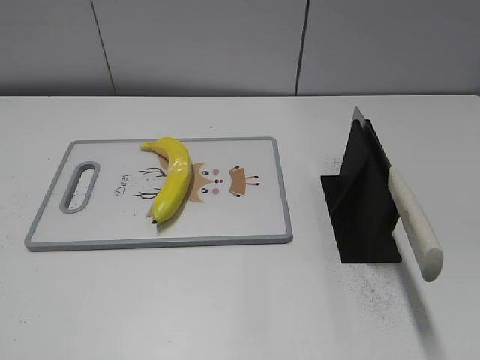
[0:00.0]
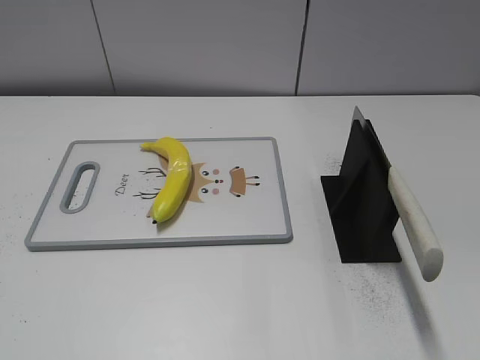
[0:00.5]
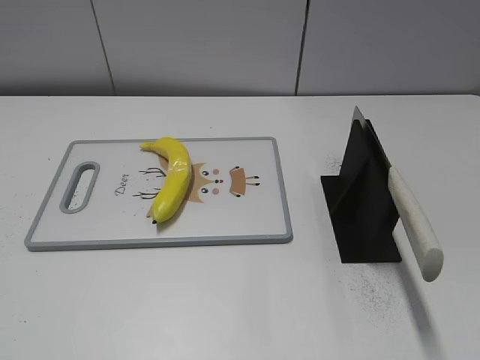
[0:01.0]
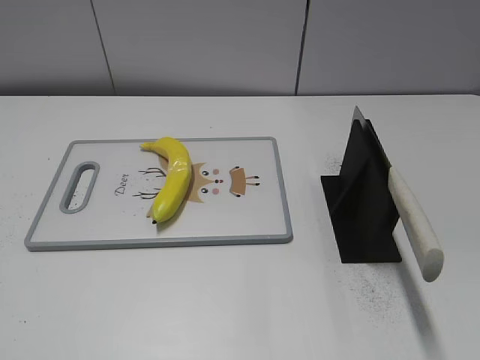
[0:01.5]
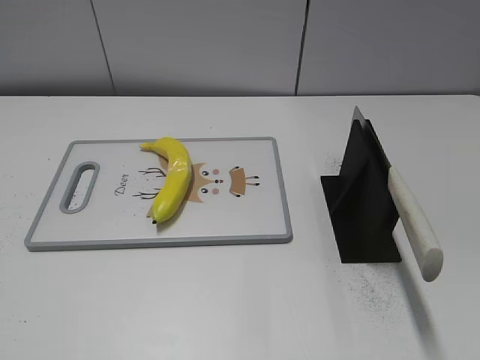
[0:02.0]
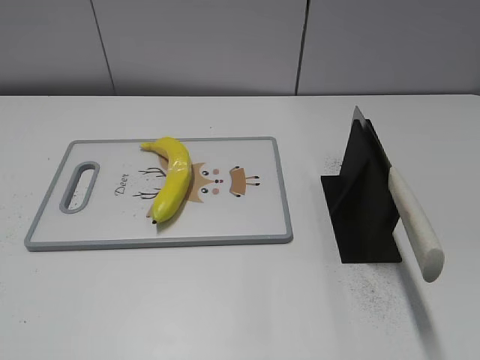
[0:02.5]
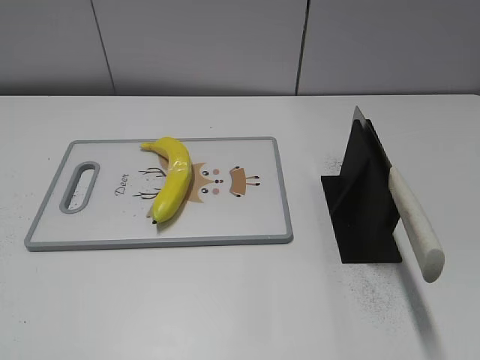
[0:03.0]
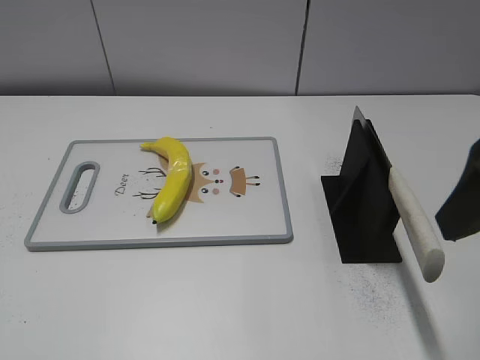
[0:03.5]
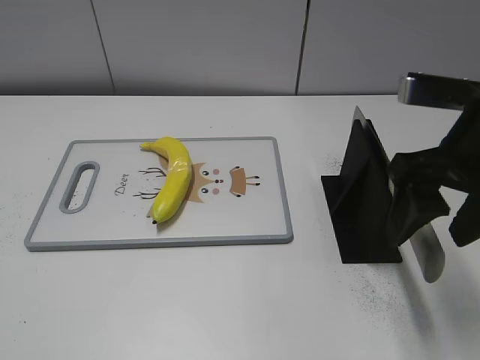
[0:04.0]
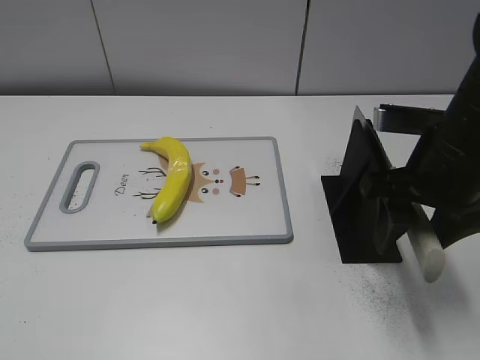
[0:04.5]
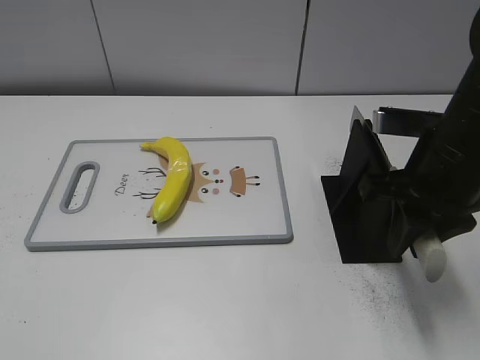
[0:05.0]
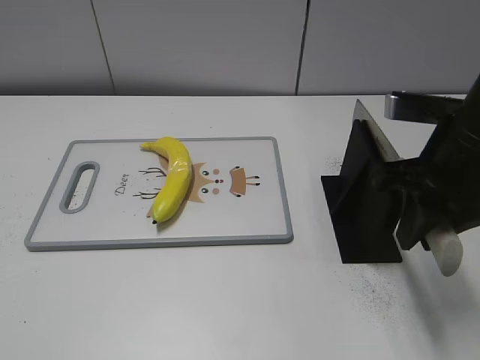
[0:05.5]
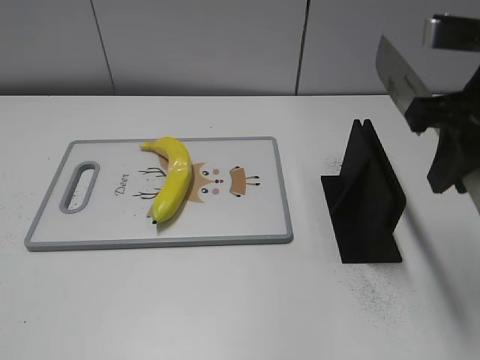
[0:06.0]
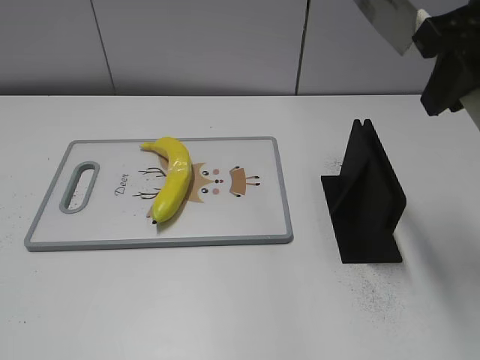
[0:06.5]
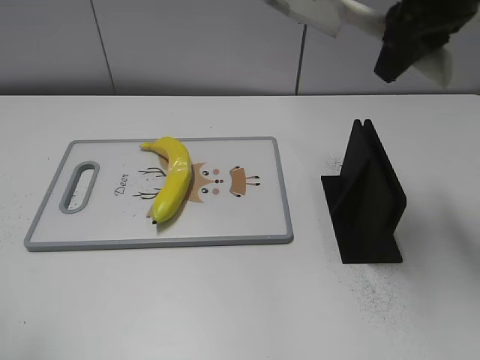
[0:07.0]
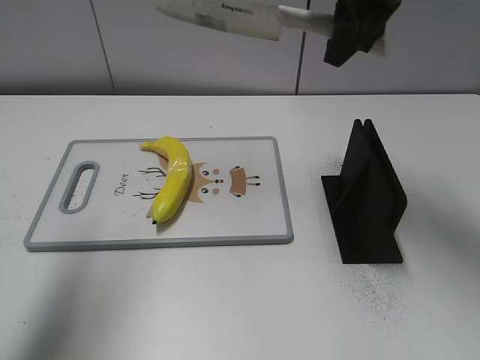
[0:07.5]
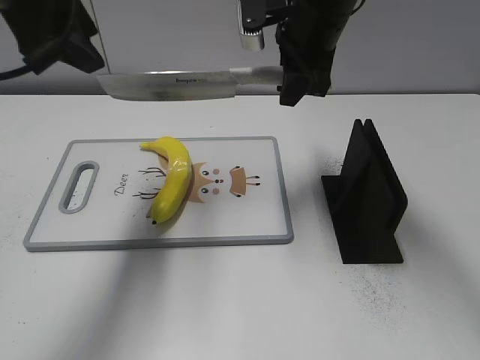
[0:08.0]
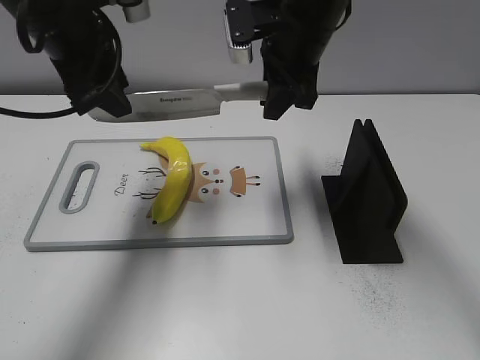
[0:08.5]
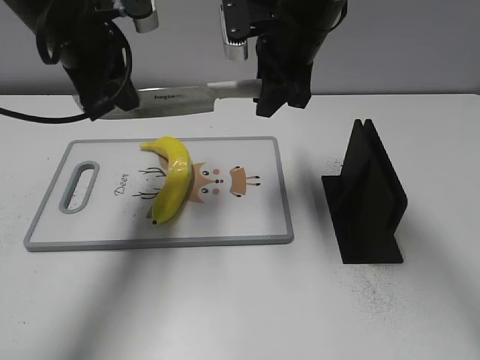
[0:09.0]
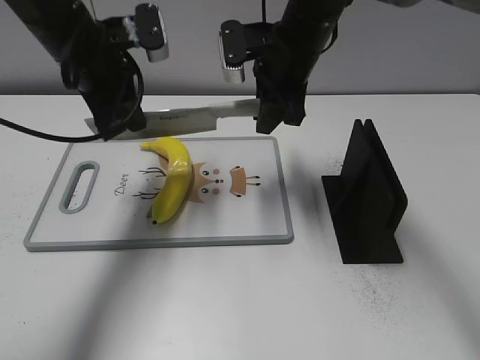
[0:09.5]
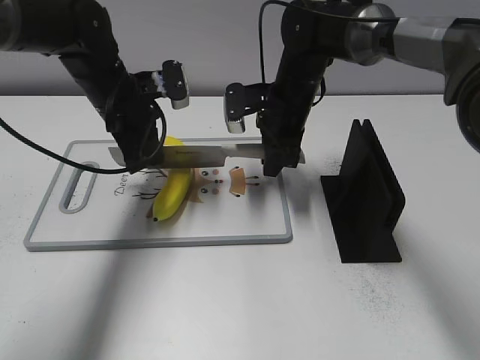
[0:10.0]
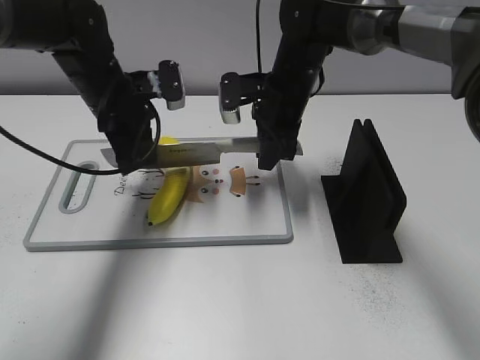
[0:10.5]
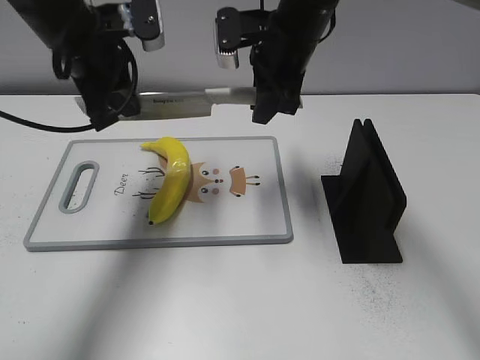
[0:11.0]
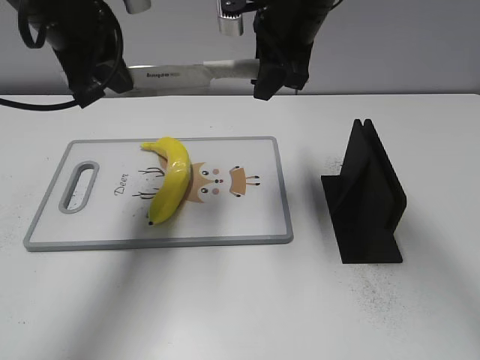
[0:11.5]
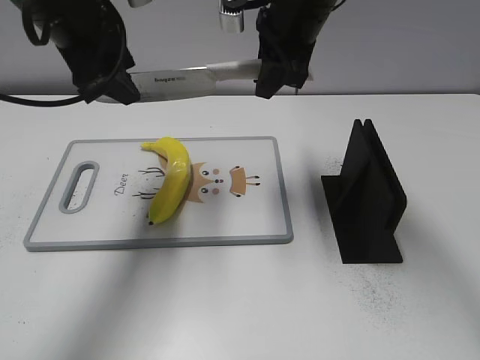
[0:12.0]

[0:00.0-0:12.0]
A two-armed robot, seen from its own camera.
Task of the whole recording: cut plastic banana.
Step, 0:00.0 to 0:06.0: Grab the knife handle with your right hand.
Step, 0:06.5 to 0:11.0: Lift the knife with your right hand.
0:02.0 to 0:04.0: The right gripper heads forward and to the left, covering about 25 cm.
0:04.0 to 0:06.0: The right gripper closes up.
0:06.0 to 0:08.0: The right gripper shifts roughly 20 cm forward and to the left. The left gripper goes roughly 35 cm forward.
0:08.0 to 0:10.0: The right gripper shifts roughly 15 cm downward. The left gripper shifts approximately 20 cm downward and forward, and closes up.
0:10.0 to 0:12.0: Both grippers move upward, roughly 15 cm. The left gripper opens up.

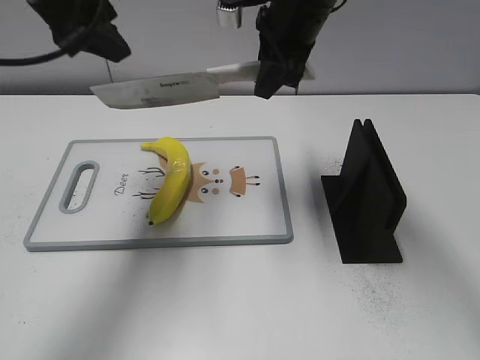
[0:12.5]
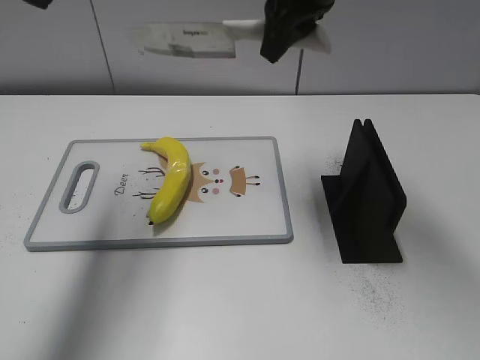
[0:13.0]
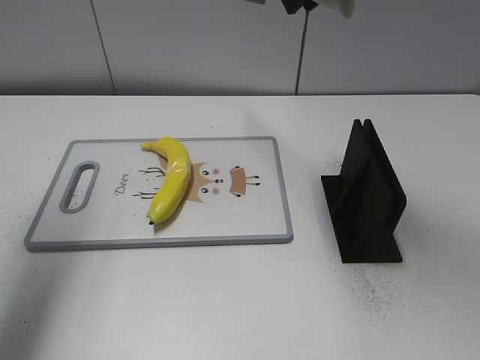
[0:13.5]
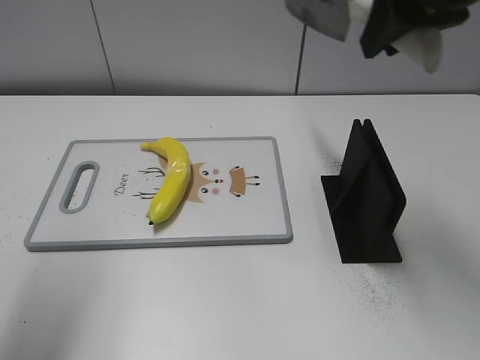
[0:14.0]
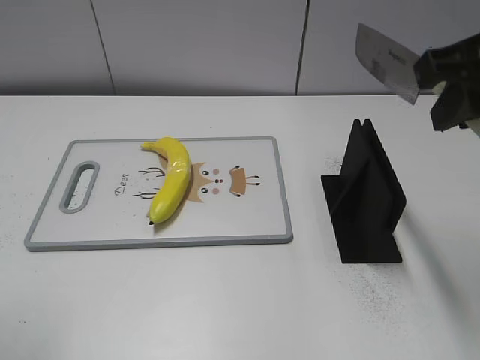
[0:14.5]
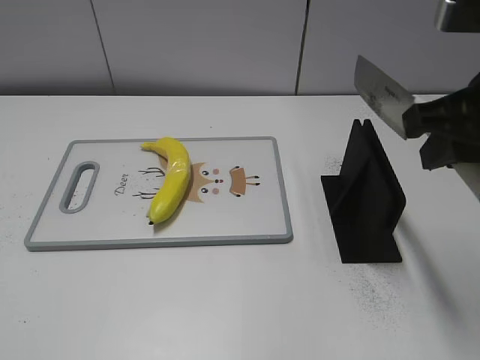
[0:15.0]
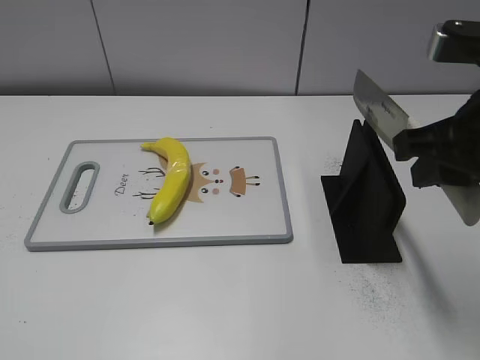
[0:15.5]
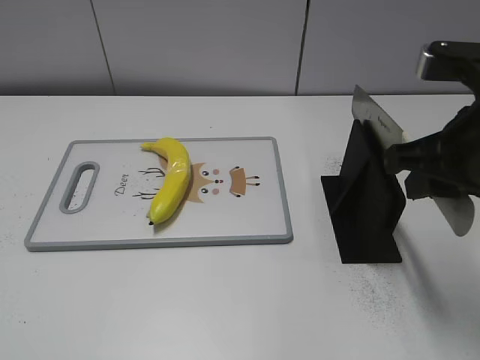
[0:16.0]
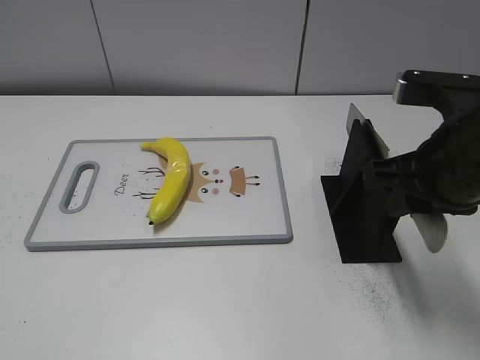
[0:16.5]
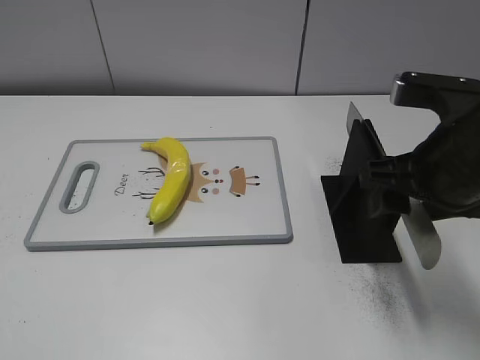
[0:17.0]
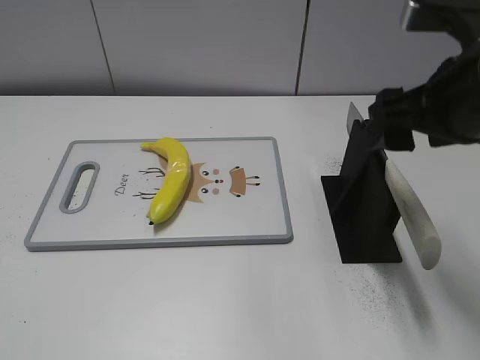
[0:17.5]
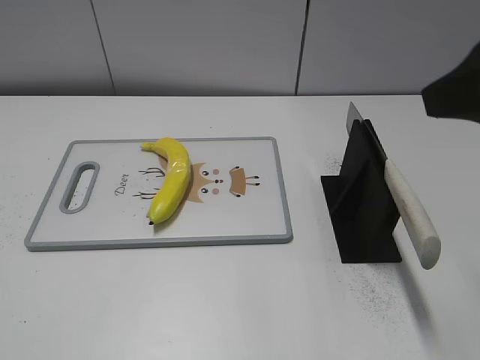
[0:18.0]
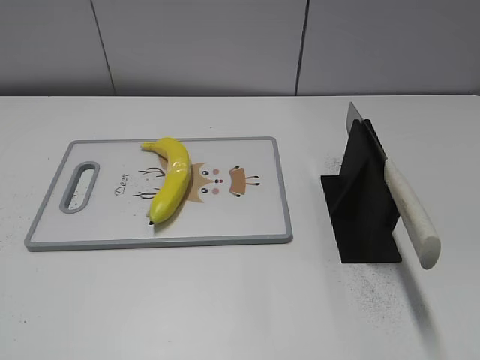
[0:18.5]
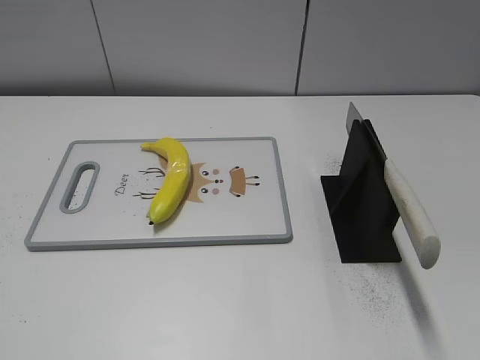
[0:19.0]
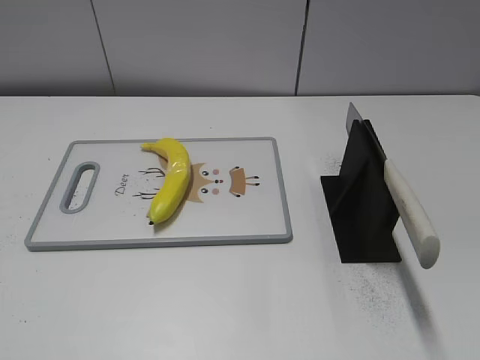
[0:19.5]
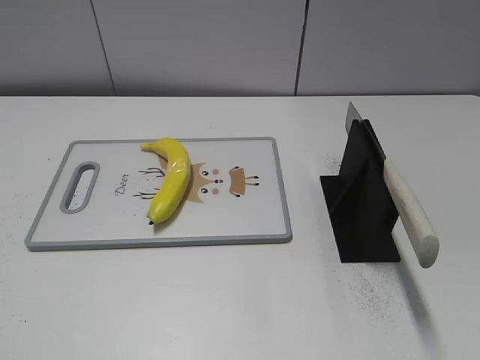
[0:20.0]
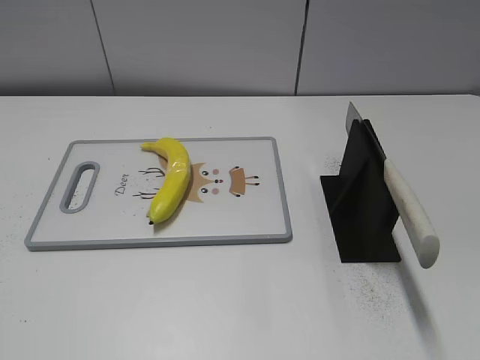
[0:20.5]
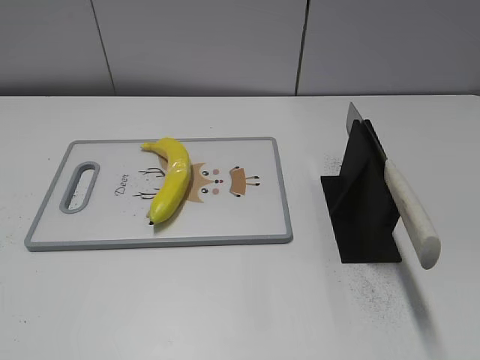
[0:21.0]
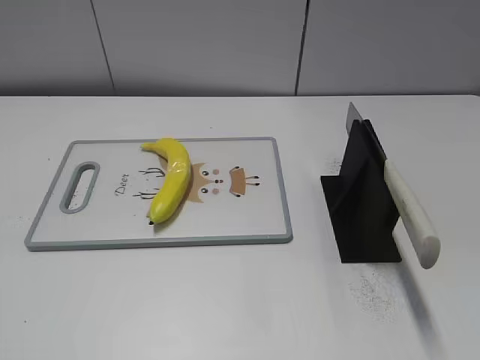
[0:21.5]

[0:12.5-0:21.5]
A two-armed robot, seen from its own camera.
Task of the whole recording: cut plastic banana.
Step, 0:13.0 to 0:14.5: Lift the knife with your right hand.
Step, 0:15.0 to 0:21.0: Place the knife on the storage rack with your right hand.
0:12.5 to 0:14.5: The left gripper moves backward and to the left, approximately 25 cm, while the right gripper travels backward and to the right by about 25 cm.
0:14.5 to 0:17.0: The right gripper goes some 10 cm downward, and opens up.
0:17.0 to 0:19.5: The right gripper travels backward and to the right by some 25 cm.
